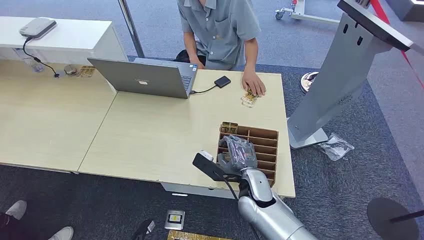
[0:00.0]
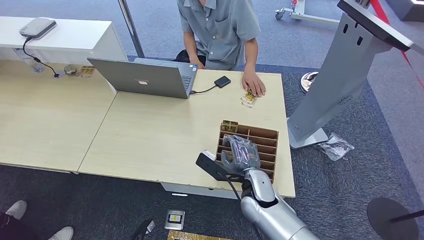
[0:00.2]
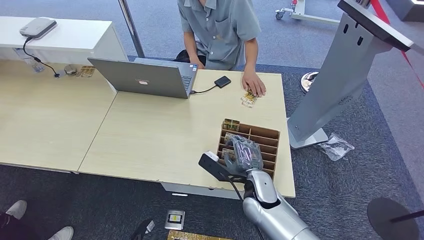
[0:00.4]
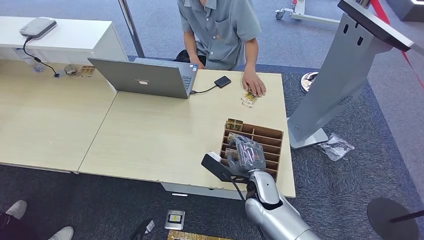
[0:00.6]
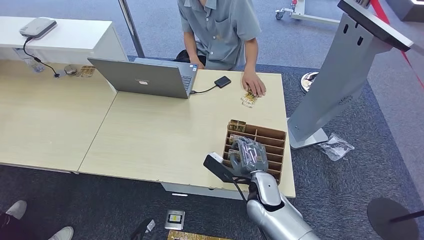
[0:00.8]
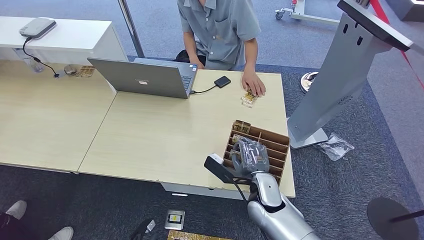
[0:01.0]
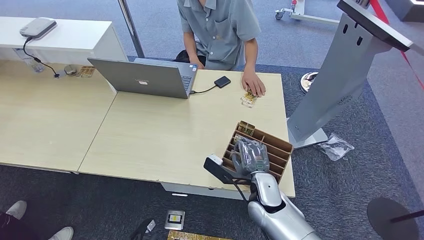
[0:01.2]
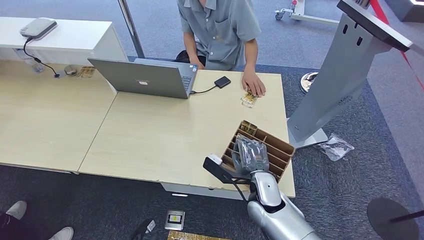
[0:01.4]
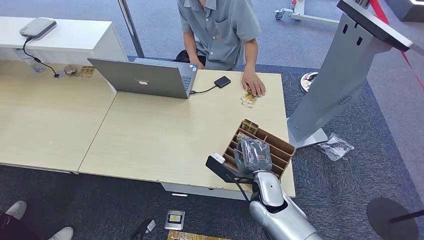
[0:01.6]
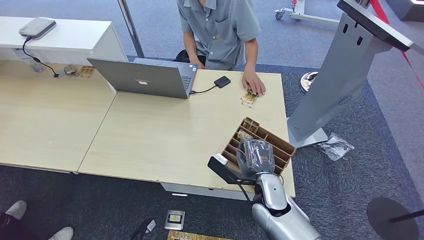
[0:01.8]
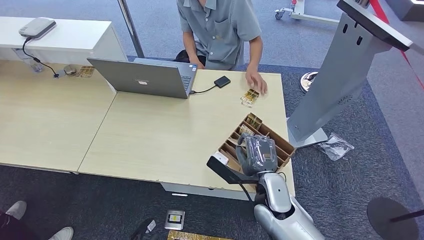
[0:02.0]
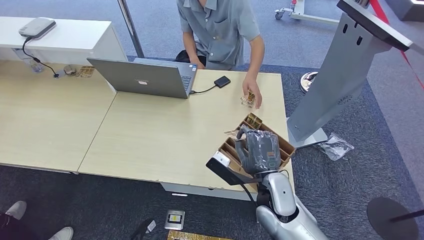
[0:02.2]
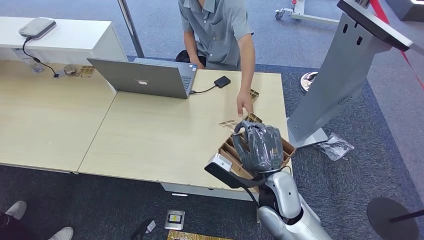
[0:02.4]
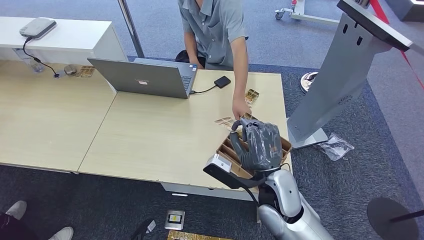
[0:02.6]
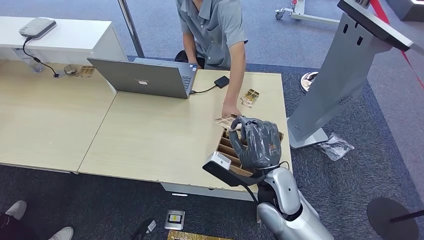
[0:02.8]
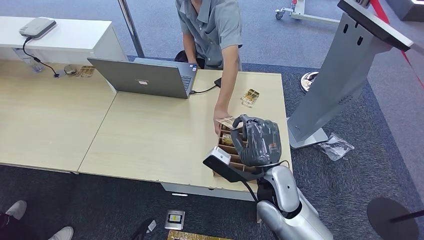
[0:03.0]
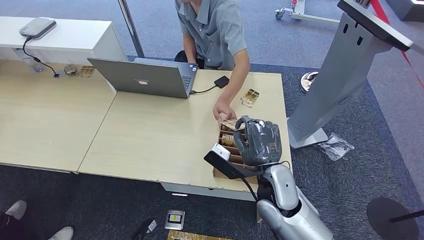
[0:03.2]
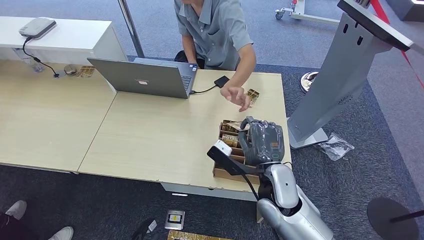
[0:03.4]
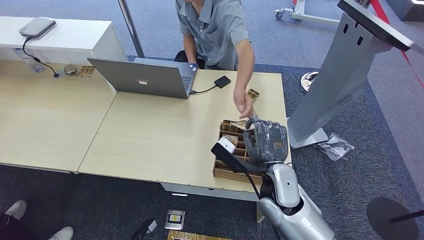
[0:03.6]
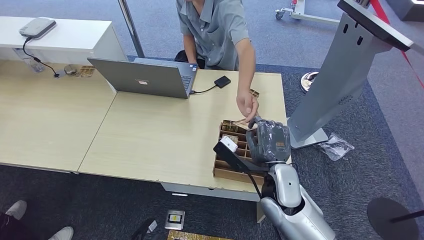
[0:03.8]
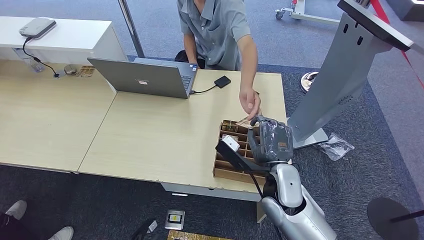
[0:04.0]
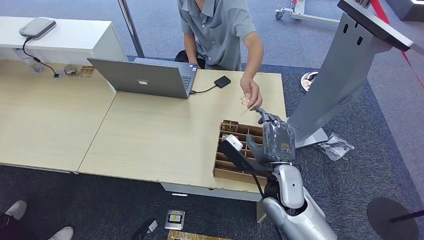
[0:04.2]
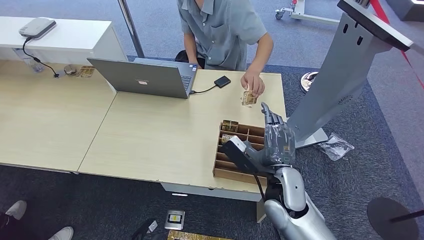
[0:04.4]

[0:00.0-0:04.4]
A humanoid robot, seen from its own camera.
Step, 0:00.0 to 0:03.0: Pick up the room card from the card holder.
Step, 0:03.2 to 0:04.4: Hand the room card to the target.
0:01.4 to 0:03.0: The right hand travels upward by roughly 10 cm.
0:03.0 to 0:04.4: The hands stay close to where they were, moving slightly.
